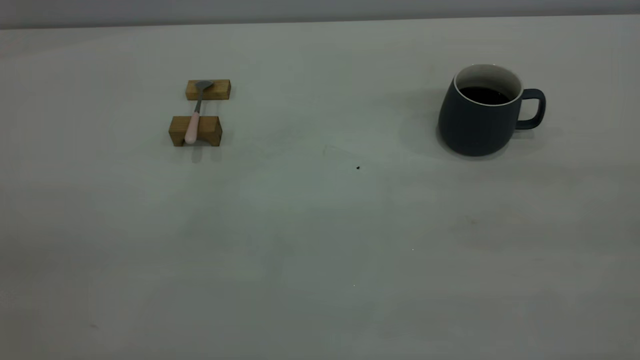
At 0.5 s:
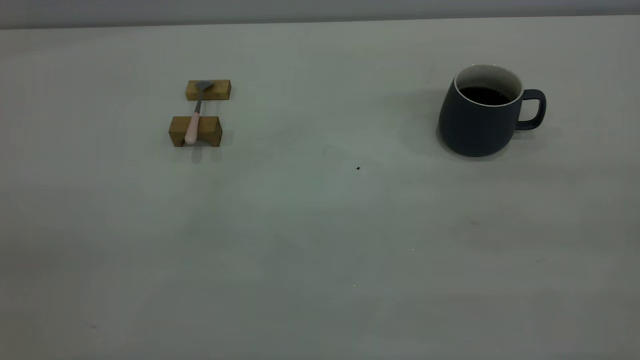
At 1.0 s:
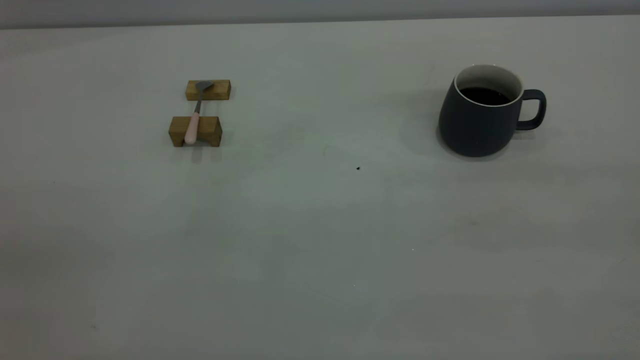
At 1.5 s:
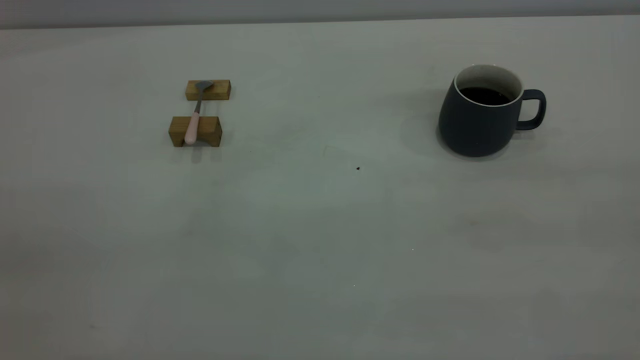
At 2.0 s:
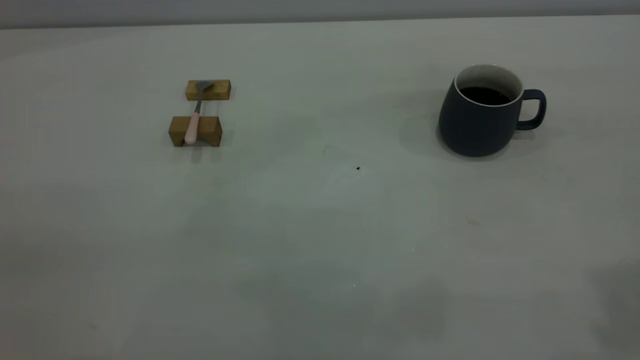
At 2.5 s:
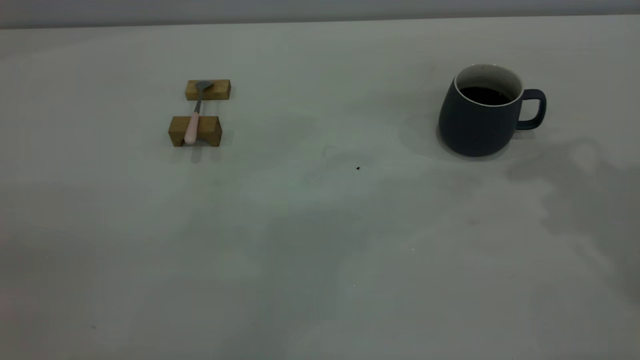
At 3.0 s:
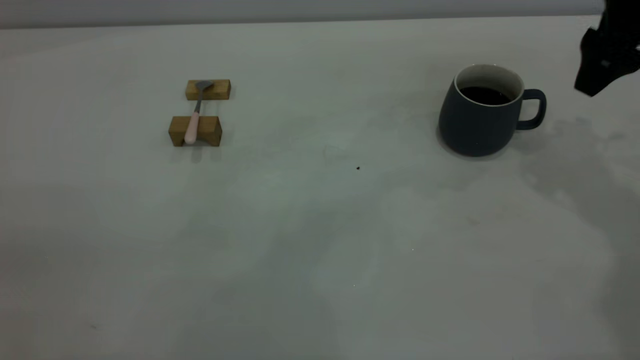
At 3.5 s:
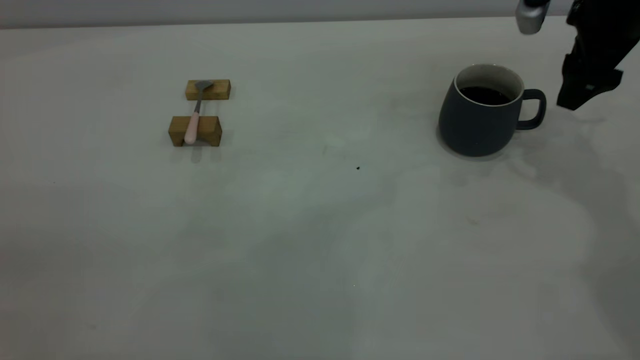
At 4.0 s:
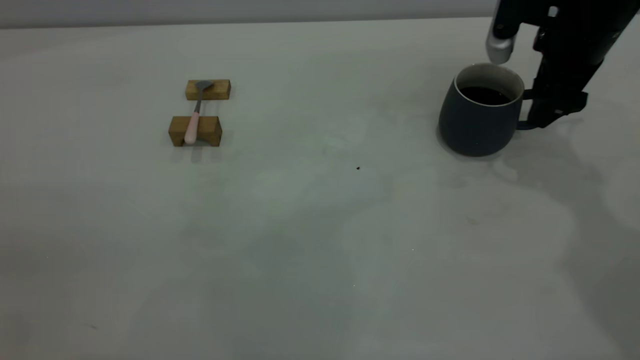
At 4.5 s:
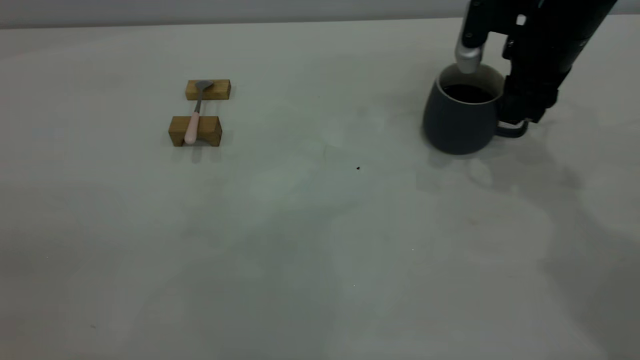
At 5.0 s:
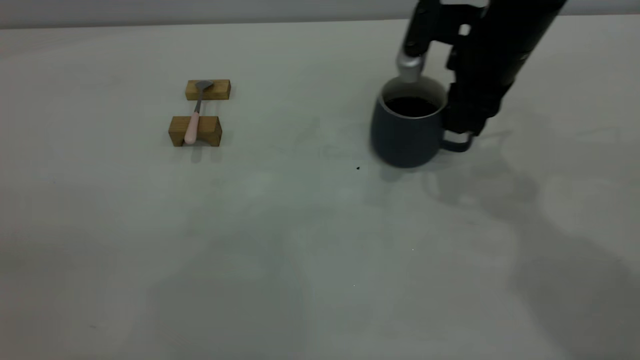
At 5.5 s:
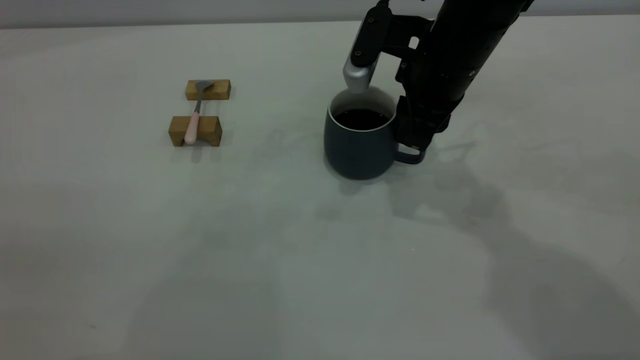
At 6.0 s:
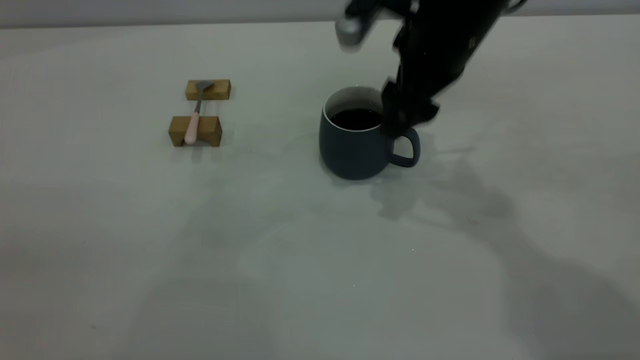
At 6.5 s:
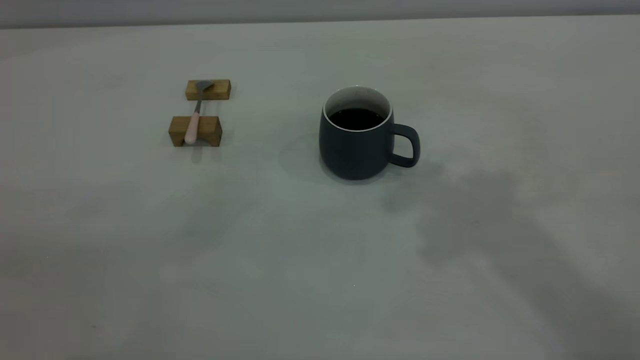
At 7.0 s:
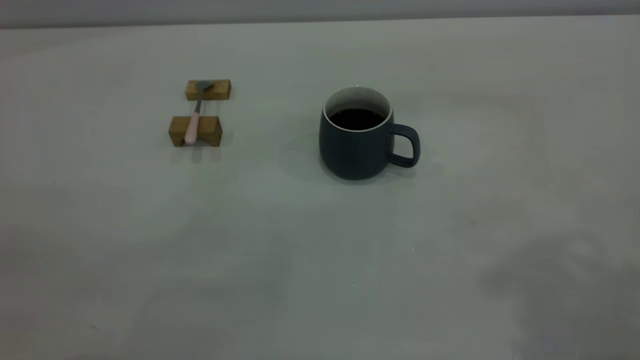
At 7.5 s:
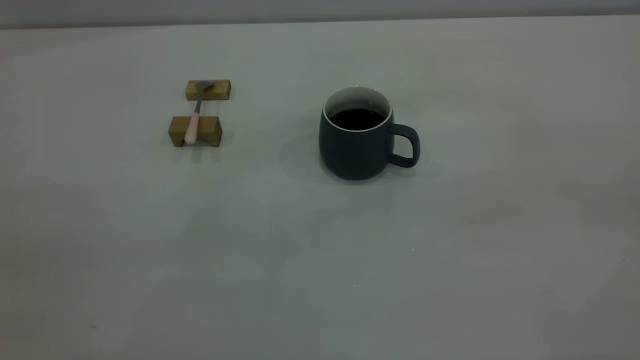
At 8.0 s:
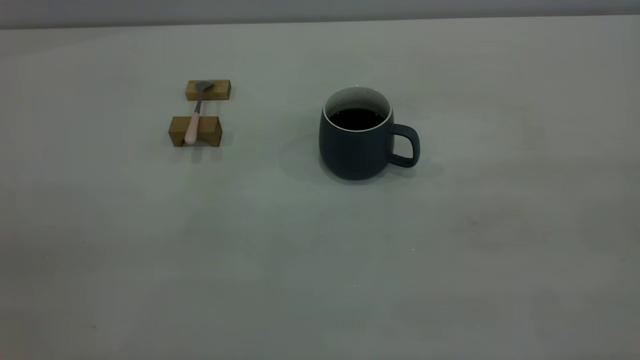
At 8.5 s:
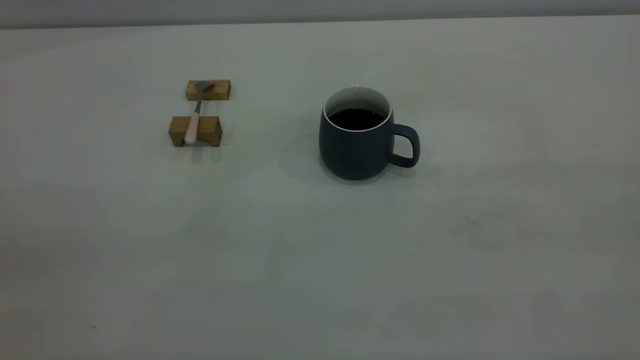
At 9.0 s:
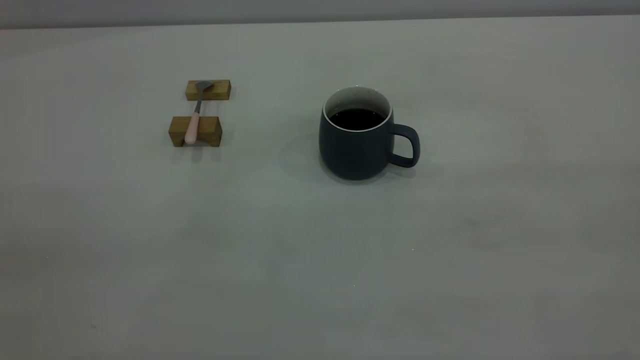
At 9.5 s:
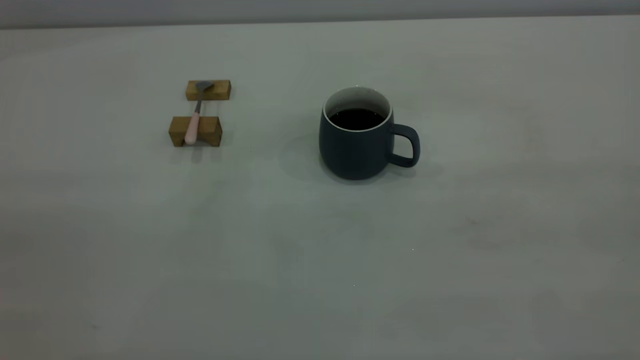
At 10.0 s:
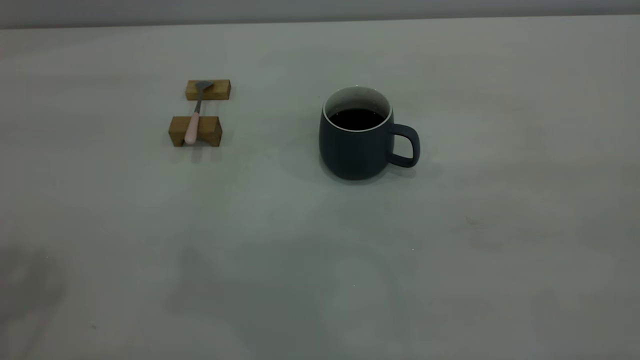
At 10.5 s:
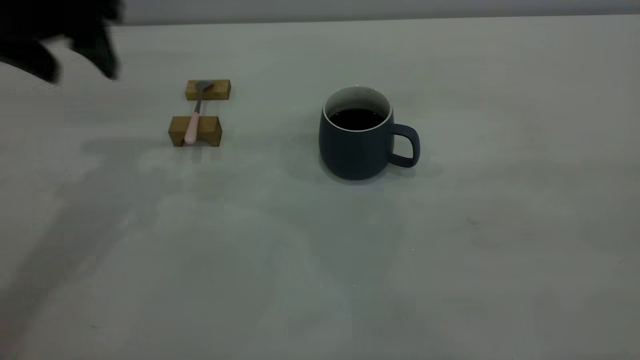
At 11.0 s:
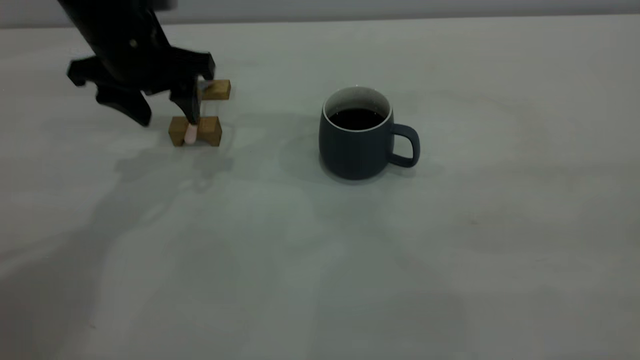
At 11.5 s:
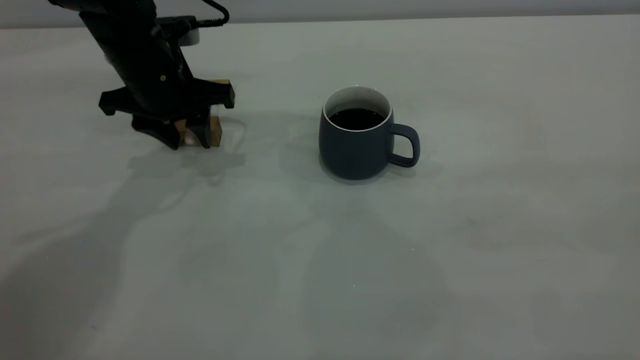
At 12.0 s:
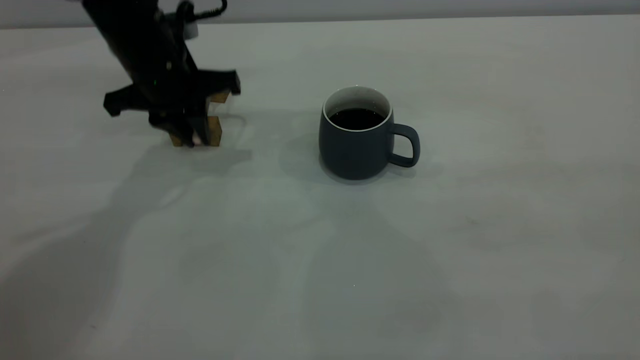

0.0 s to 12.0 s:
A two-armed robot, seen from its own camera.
Step, 0.0 to 6.0 s: Move the cup with coffee to the center of view.
2.0 to 4.0 s: The right gripper shifts some 35 cm forward and downward.
4.0 to 6.0 s: The right gripper moves to the left, some 15 cm, and closes, then opens again.
6.0 to 8.0 s: The right gripper travels backward, to the right and upward by roughly 40 cm.
10.0 to 12.0 s: The left gripper is displaced downward, forward and to the right by about 35 cm, and closes.

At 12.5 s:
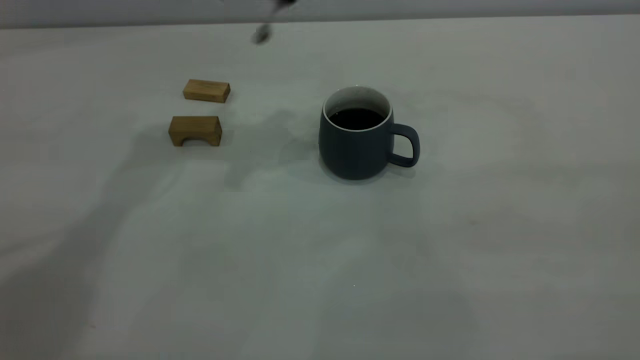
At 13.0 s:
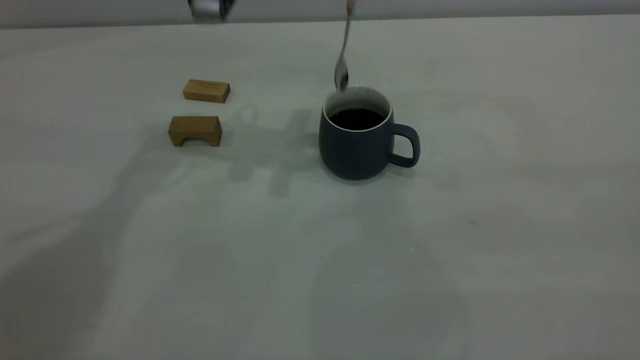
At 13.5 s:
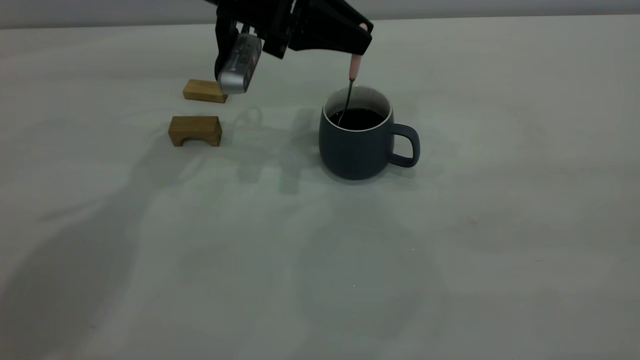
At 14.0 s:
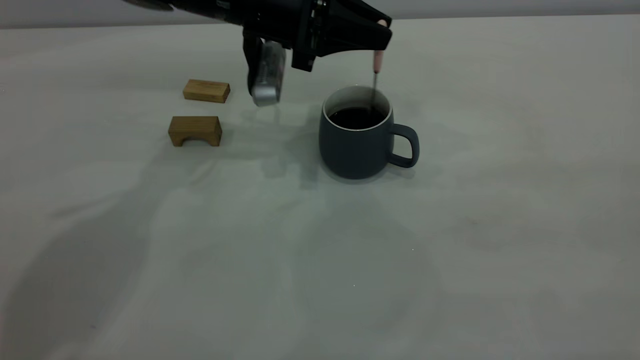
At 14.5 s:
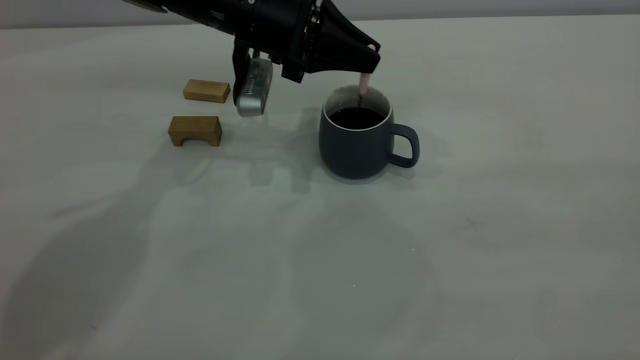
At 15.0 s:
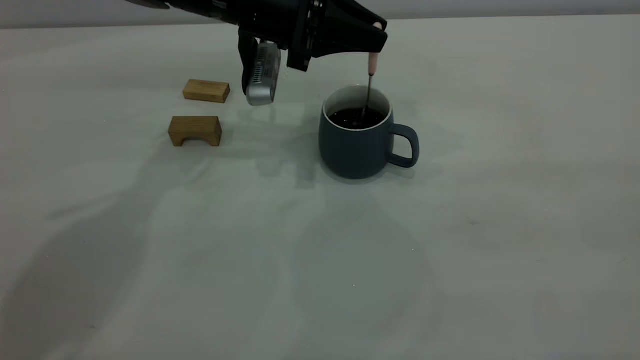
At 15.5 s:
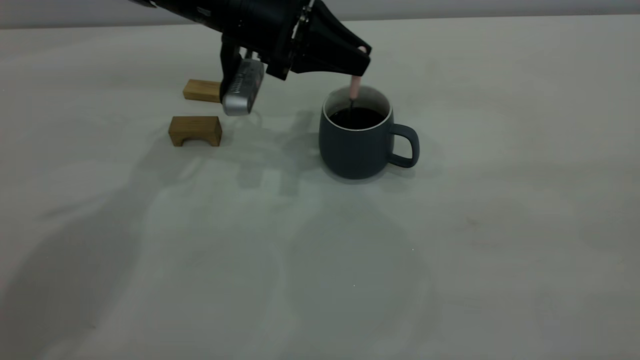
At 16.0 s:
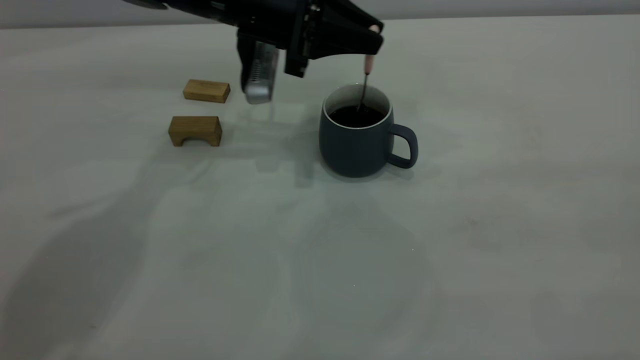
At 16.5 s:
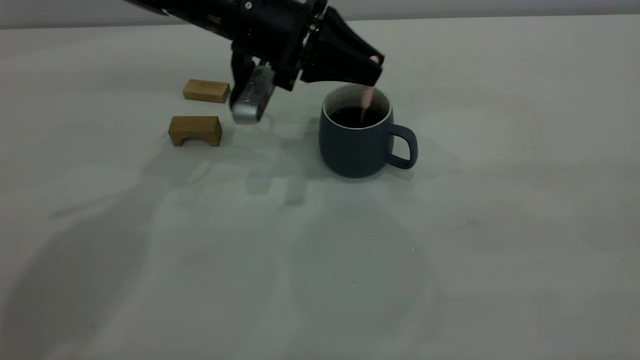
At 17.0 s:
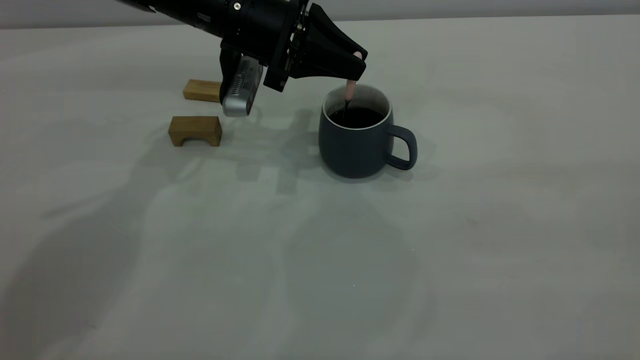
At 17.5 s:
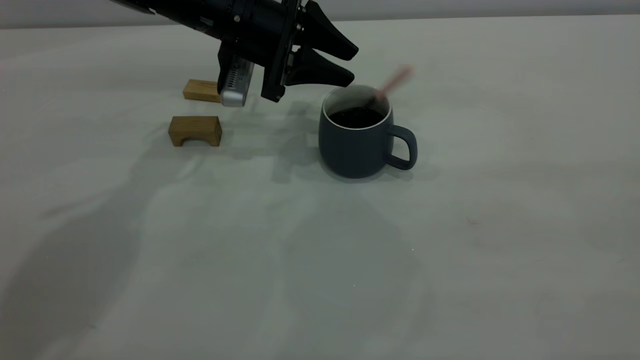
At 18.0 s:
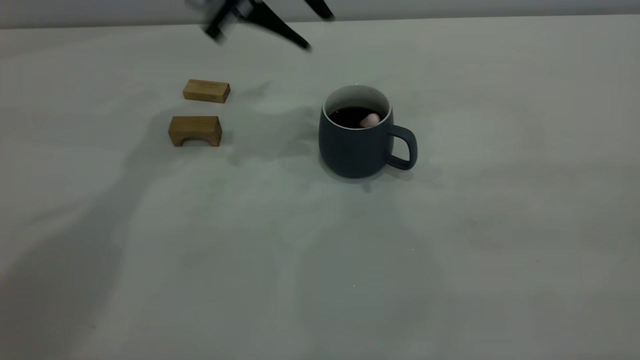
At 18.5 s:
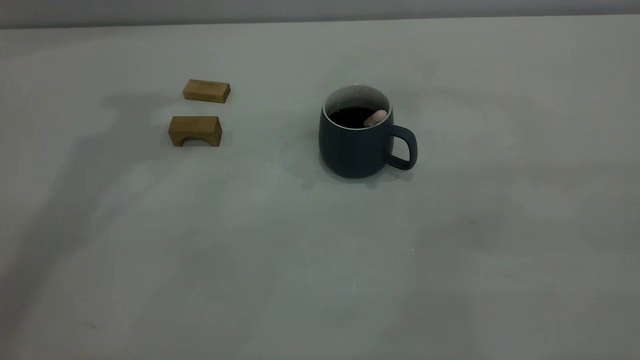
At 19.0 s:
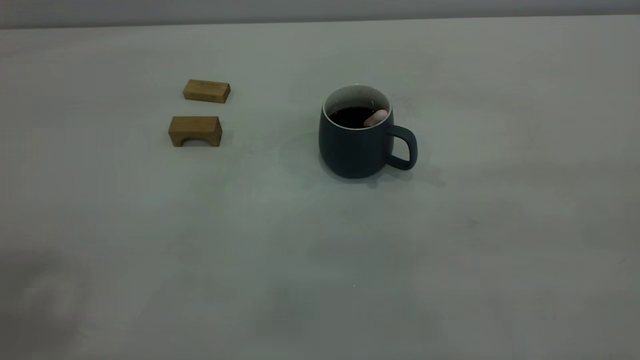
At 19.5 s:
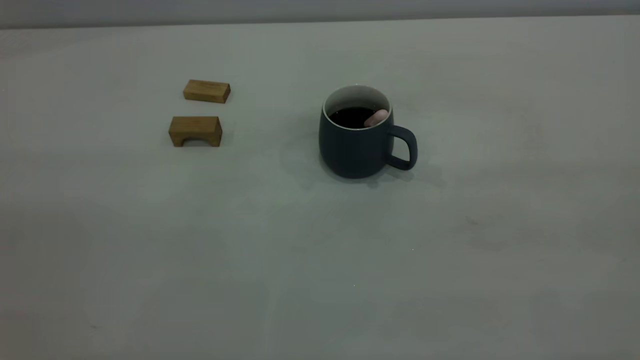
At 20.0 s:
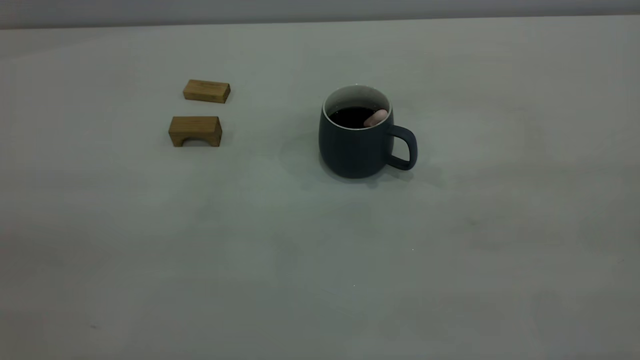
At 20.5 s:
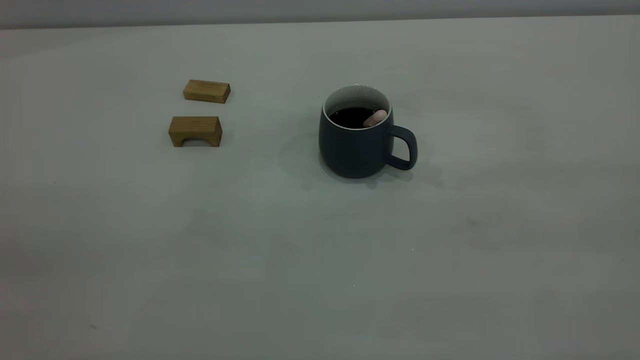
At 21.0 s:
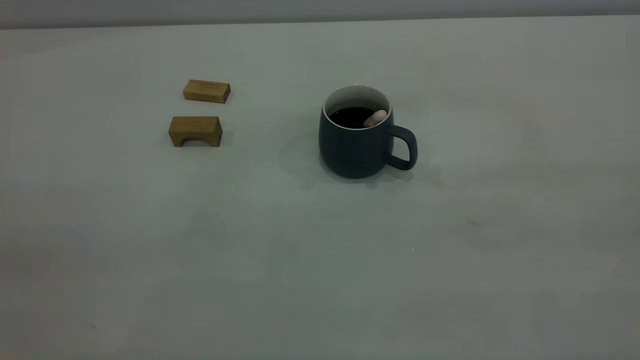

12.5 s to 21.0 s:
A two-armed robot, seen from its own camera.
Step, 12.5 to 17.5 s: Stir the coffee in the cup.
12.5 to 14.5 s: The left gripper is displaced downward by approximately 15 cm.
14.5 to 16.5 s: The grippers stay close to where they were, moving slightly.
16.5 to 19.0 s: The left gripper heads upward, backward and to the left, covering roughly 50 cm, and opens up.
